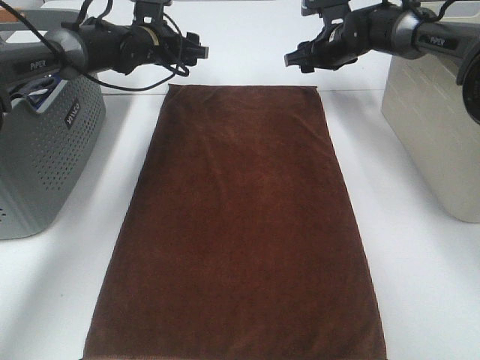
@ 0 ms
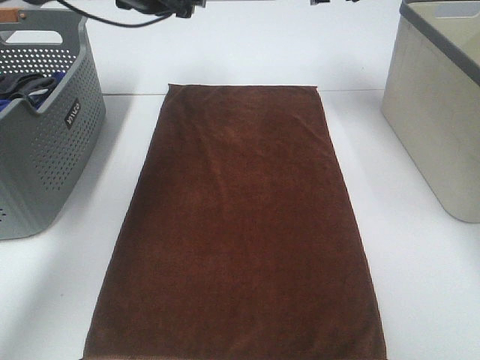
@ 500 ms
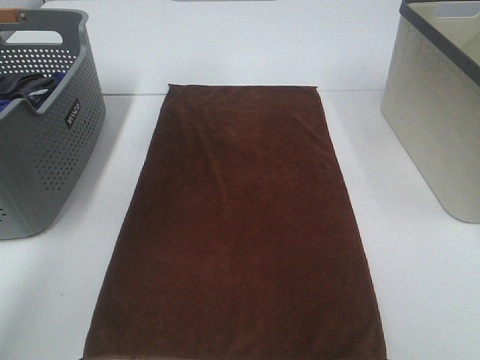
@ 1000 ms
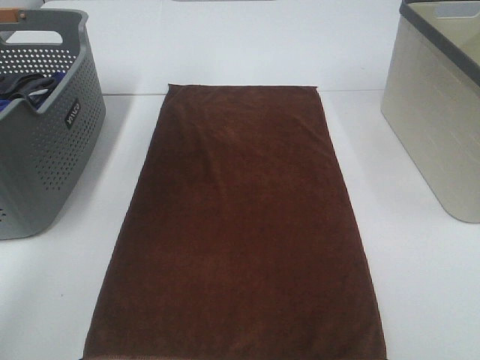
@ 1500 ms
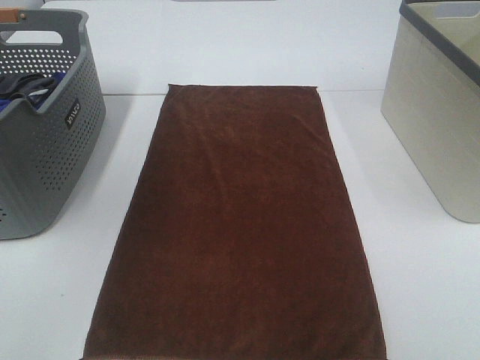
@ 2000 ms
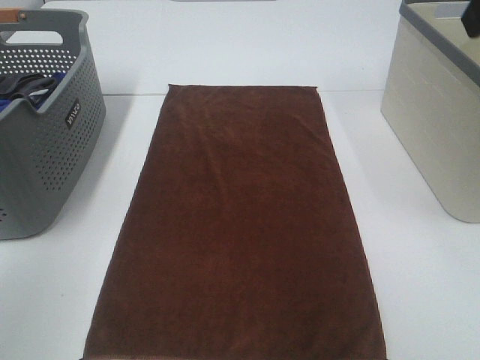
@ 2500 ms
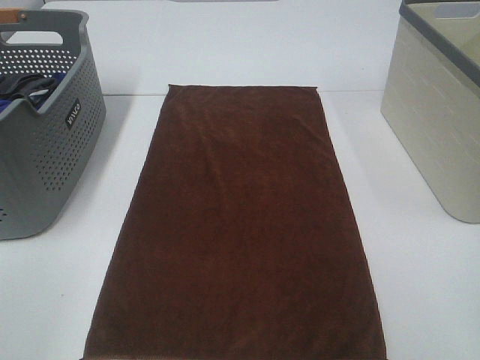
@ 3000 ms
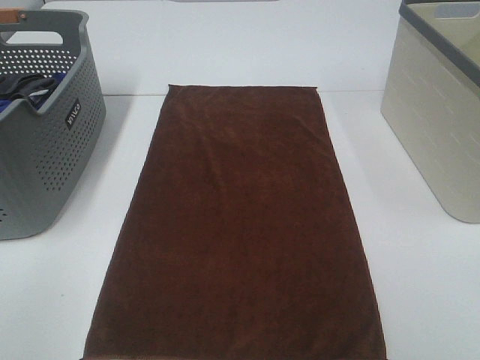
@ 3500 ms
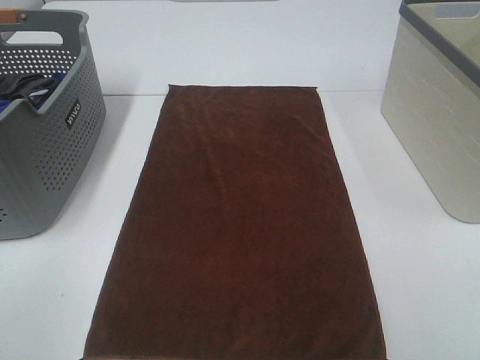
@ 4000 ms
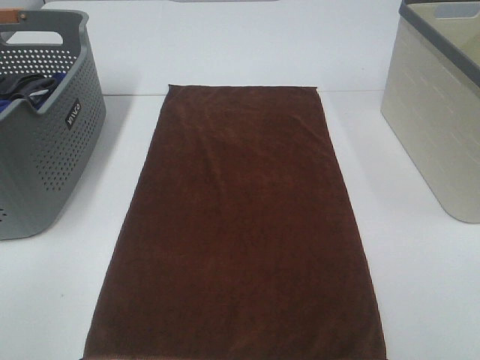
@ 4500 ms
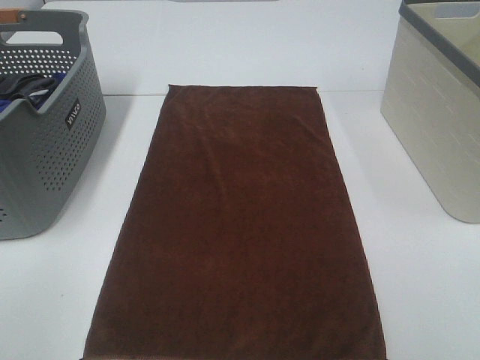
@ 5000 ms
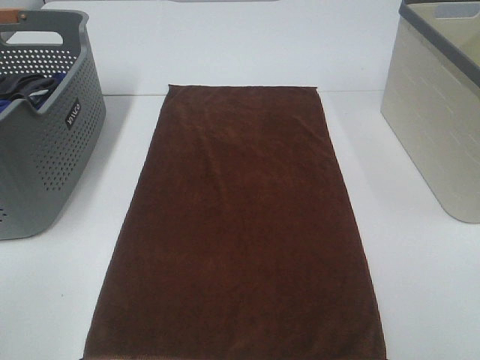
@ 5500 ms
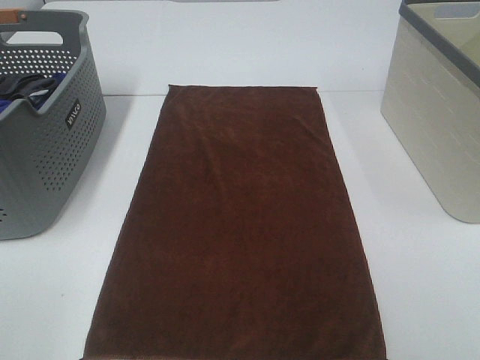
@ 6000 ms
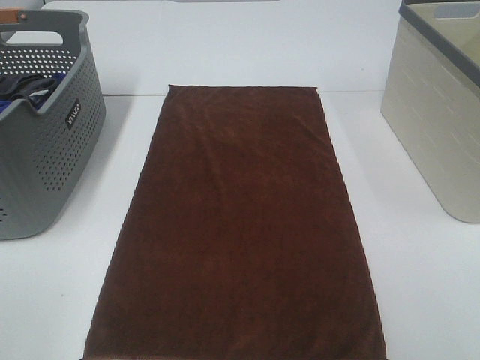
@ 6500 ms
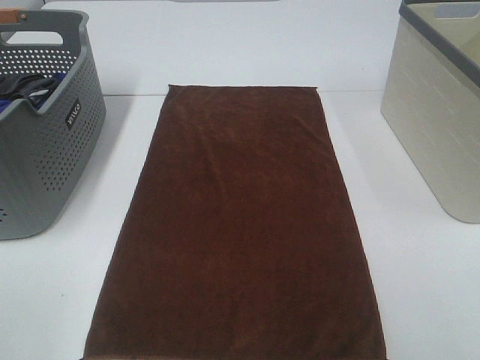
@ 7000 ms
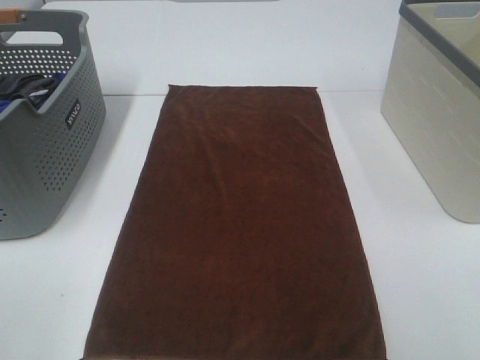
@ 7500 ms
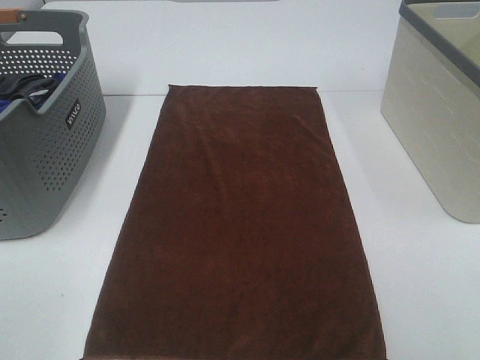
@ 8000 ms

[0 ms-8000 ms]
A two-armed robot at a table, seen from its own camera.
Task of the whole recording: Remove the towel and place it.
0 ms to 2000 ms: The left gripper shifts approximately 40 cm backward and upward. Meanwhile the right gripper is displaced upward and backward by about 40 cm.
2000 ms to 4000 ms: The left gripper heads backward and downward, covering some 30 cm.

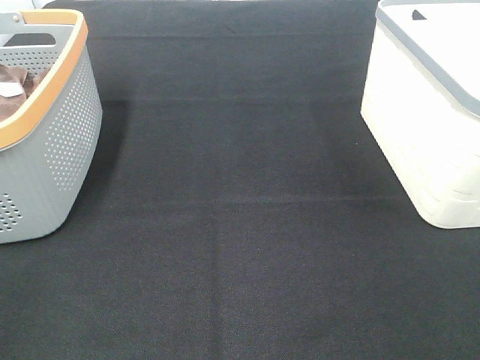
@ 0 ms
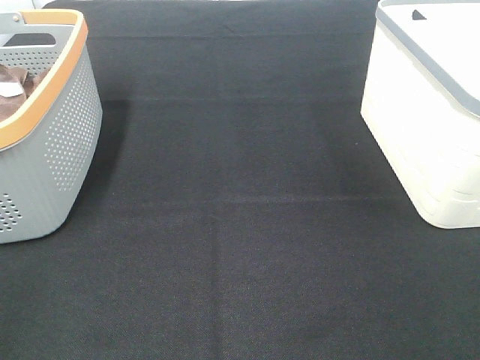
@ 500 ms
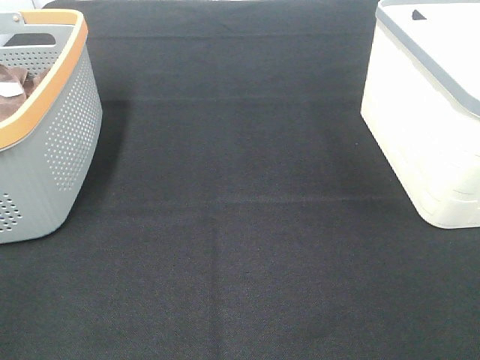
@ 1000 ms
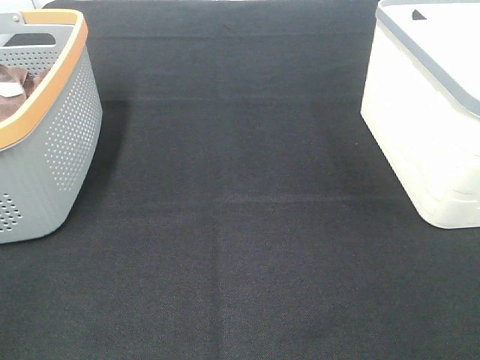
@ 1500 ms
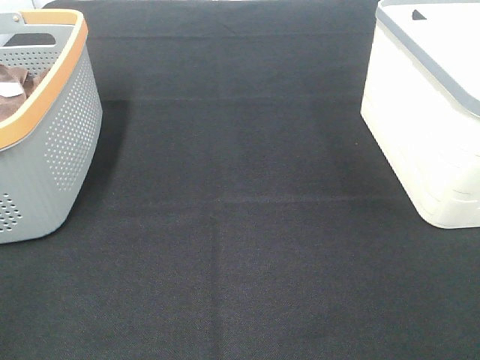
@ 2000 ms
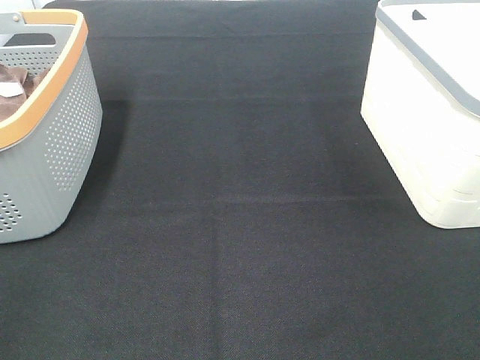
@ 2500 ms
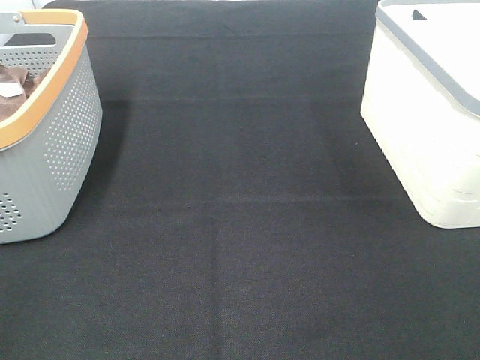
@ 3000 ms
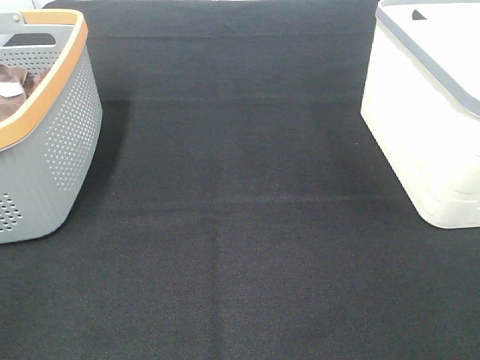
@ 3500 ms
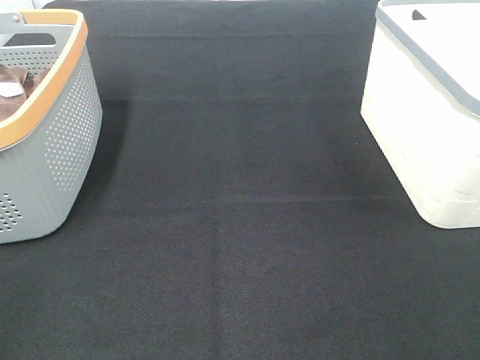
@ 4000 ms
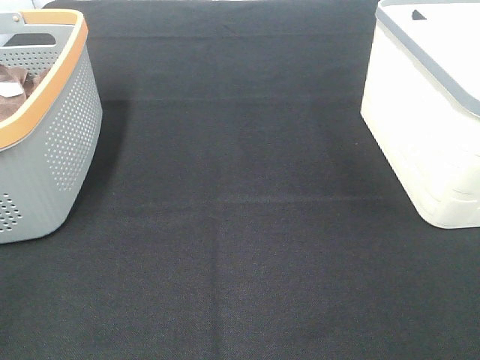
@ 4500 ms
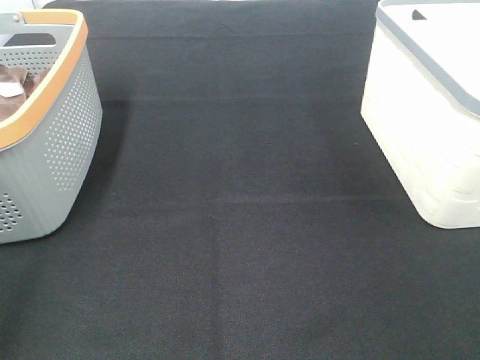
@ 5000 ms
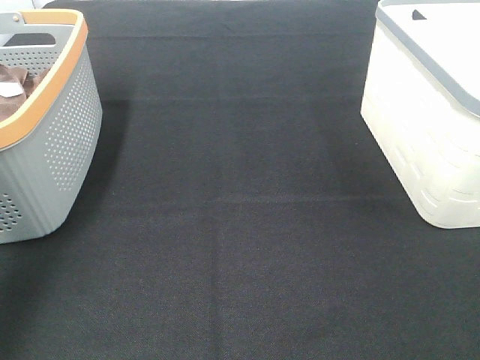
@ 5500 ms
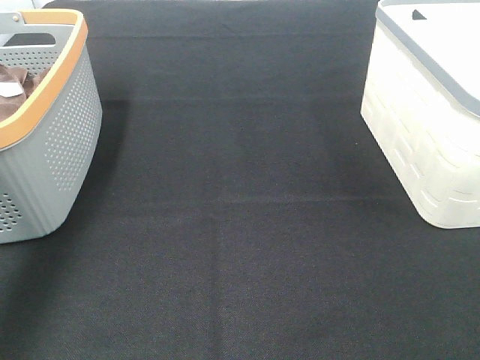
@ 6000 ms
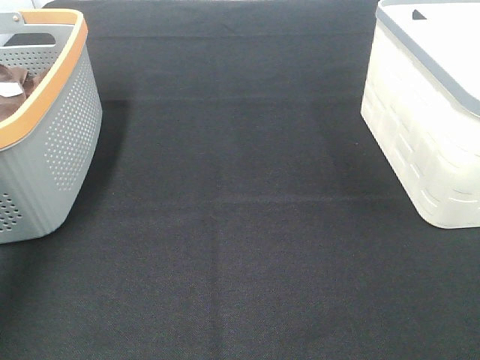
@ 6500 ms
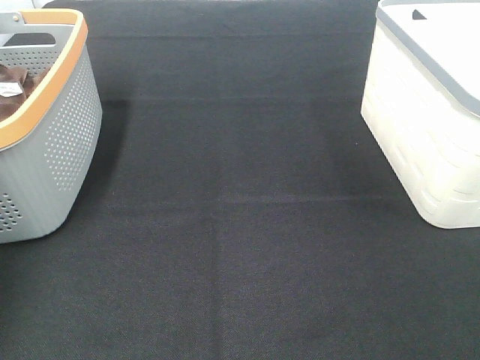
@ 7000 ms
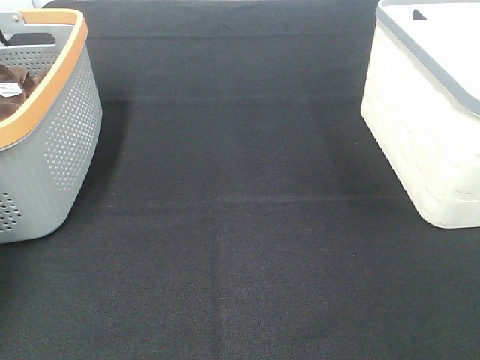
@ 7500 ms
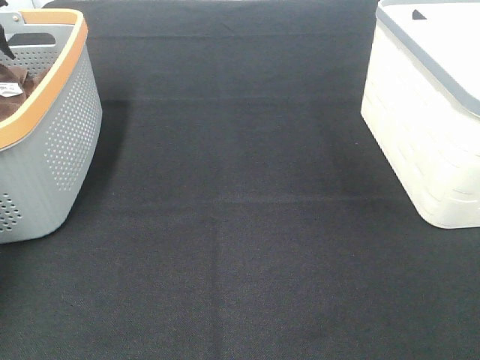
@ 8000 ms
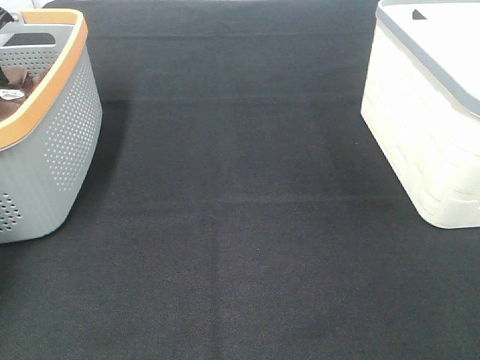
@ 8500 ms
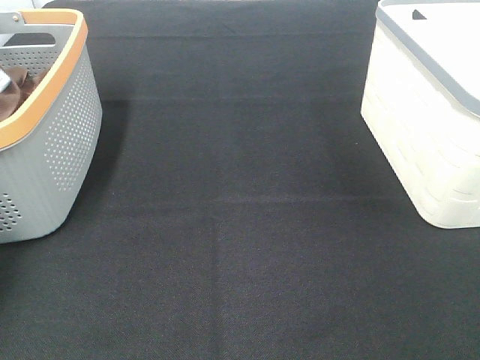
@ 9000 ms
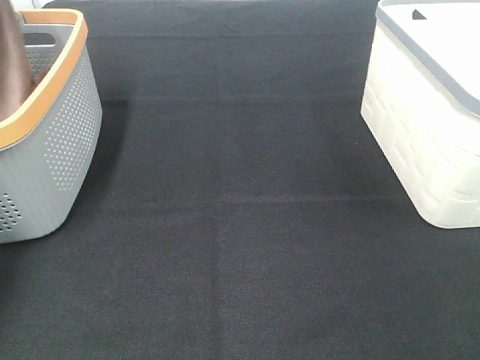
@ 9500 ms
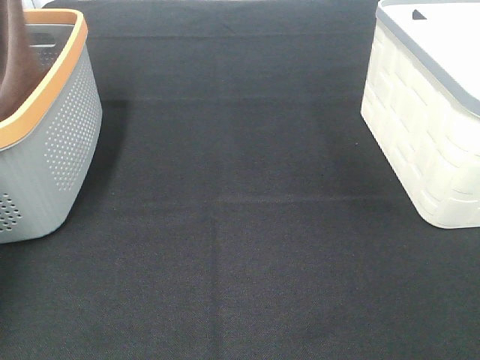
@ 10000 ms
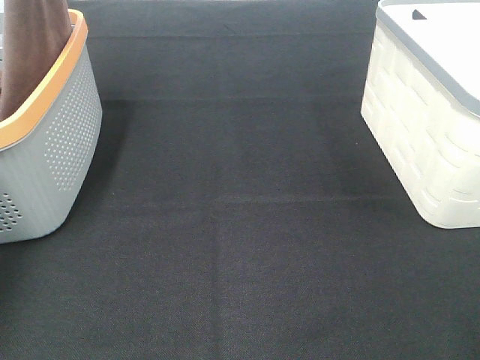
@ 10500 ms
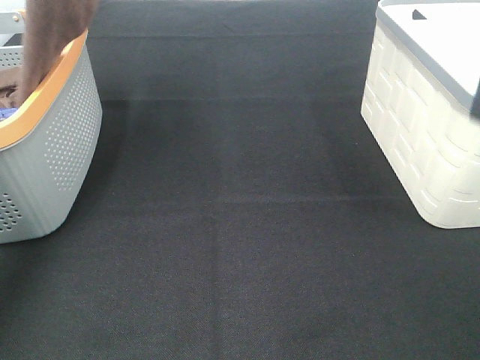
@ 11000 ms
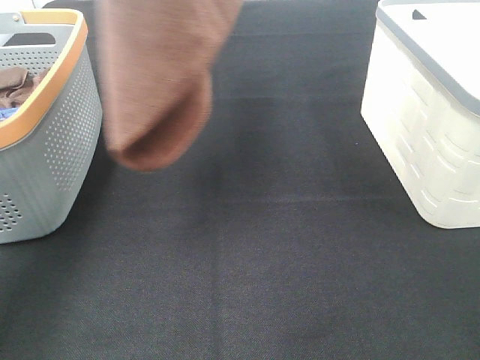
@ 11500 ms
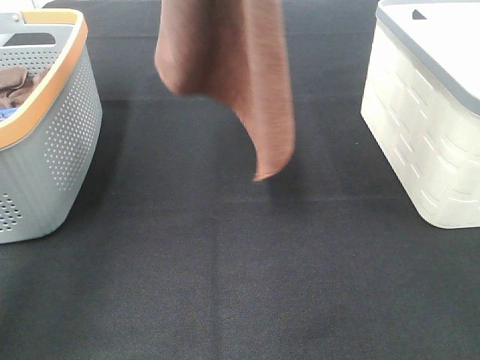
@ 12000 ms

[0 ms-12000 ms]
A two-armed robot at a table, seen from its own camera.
Task of the whole recording: Remove the towel and place it.
0 ms to 4000 ms: Both grippers stay put.
4000 ms to 6000 ms: The left gripper heads forward, covering approximately 35 cm.
6000 ms to 8000 ms: The left gripper goes some 25 cm forward, downward and to the left.
8000 ms to 10000 ms: The left gripper is displaced upward by approximately 25 cm, and closes up.
10000 ms to 12000 ms: The left gripper travels to the right and backward by roughly 25 cm. Meanwhile the right gripper is displaced forward and upward by some 25 cm.

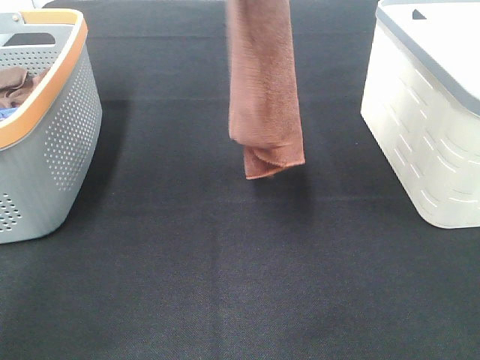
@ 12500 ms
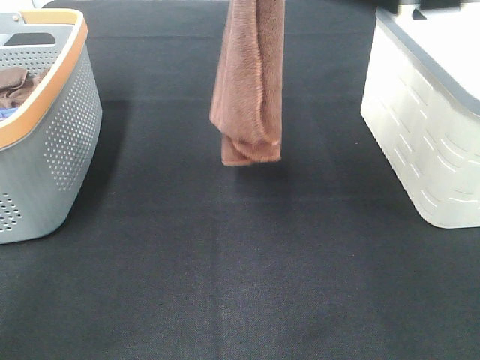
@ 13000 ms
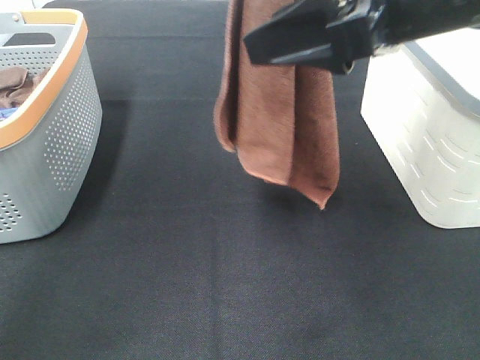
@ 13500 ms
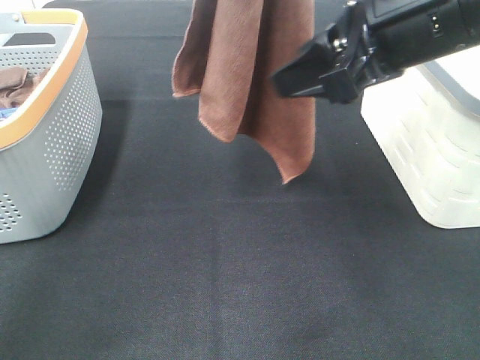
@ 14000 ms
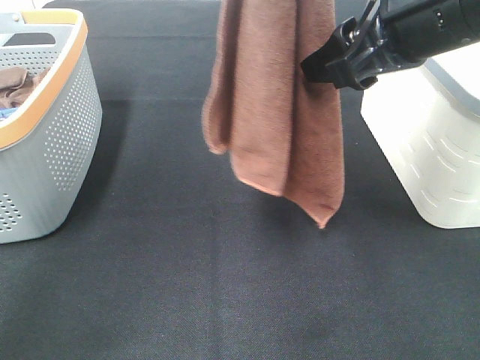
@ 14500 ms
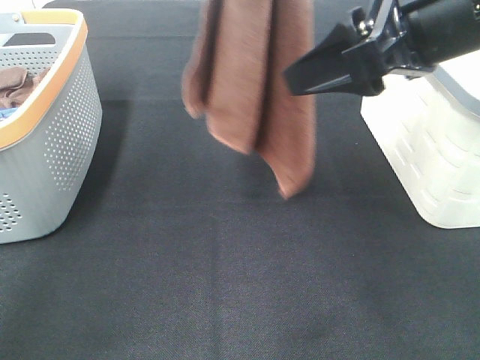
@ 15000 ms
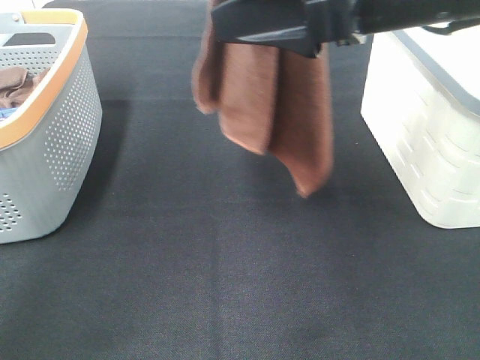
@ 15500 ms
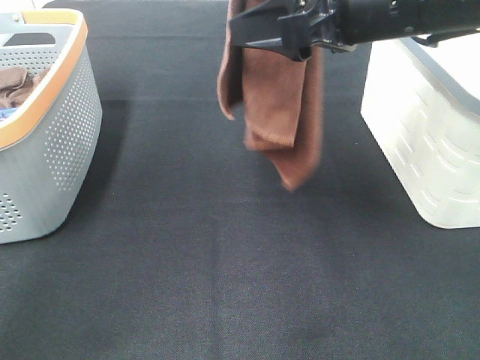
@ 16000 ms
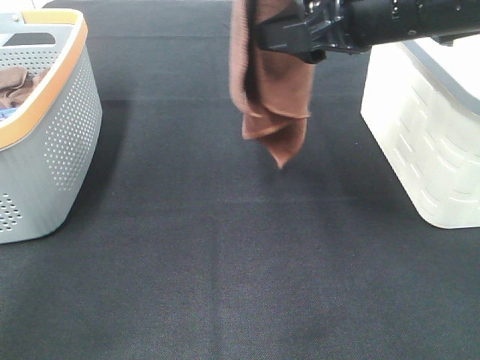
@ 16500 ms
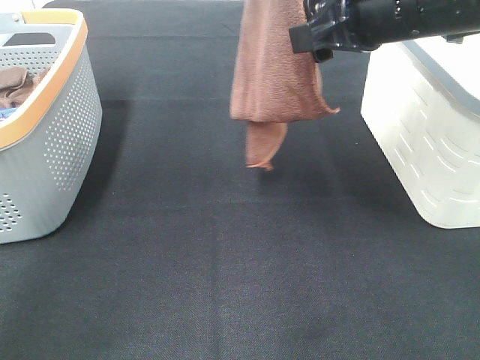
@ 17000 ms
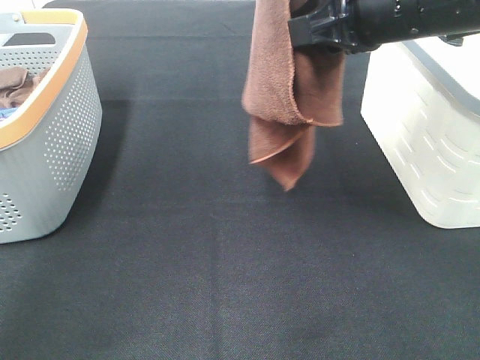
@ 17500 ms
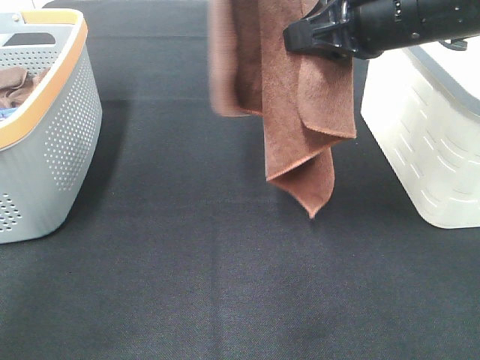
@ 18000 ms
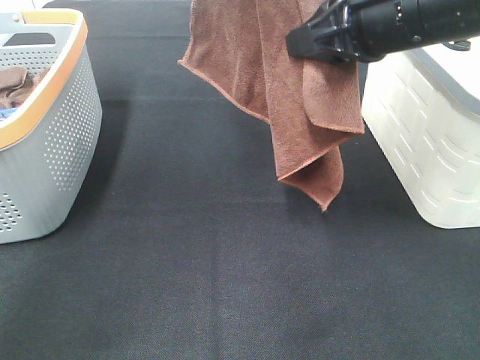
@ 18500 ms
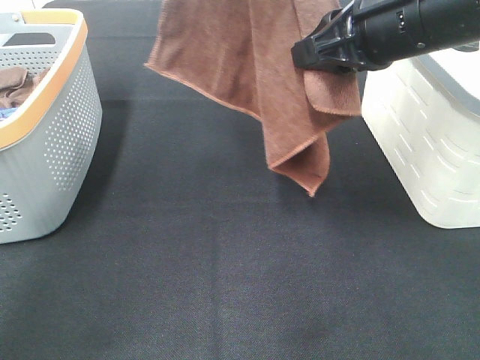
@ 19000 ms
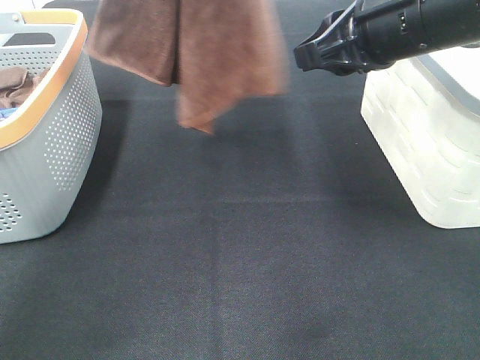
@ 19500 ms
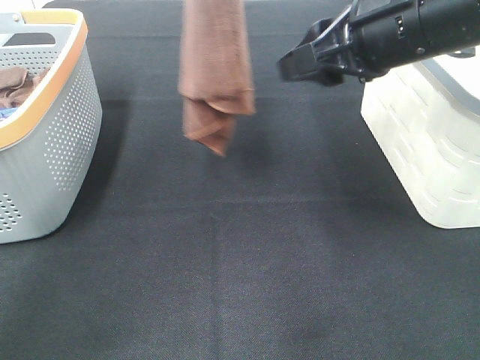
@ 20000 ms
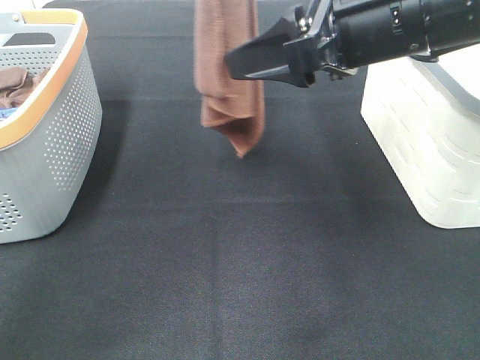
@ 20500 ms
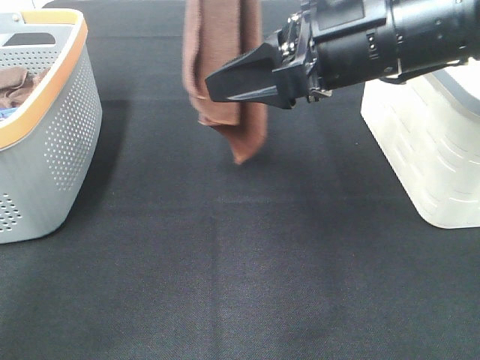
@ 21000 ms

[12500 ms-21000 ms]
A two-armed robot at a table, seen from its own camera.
Task of the whole recording: Remove the towel and place it.
Step, 12500 ms to 20500 ms: Right hand: grab a corner of the brown towel and straighten it.
12500 ms to 14500 ms: The right gripper heads downward and to the left, covering approximately 10 cm.
16500 ms to 19000 ms: The right gripper closes.
19000 ms to 21000 ms: The right gripper opens its fingers.
